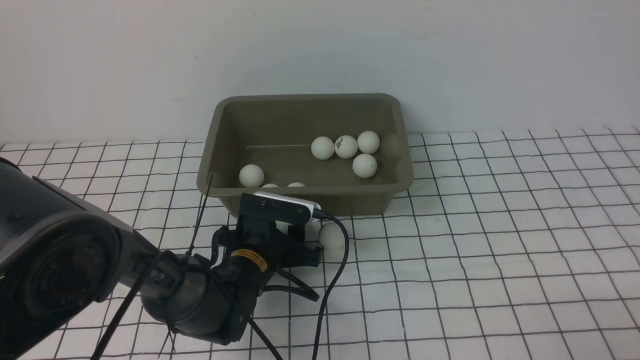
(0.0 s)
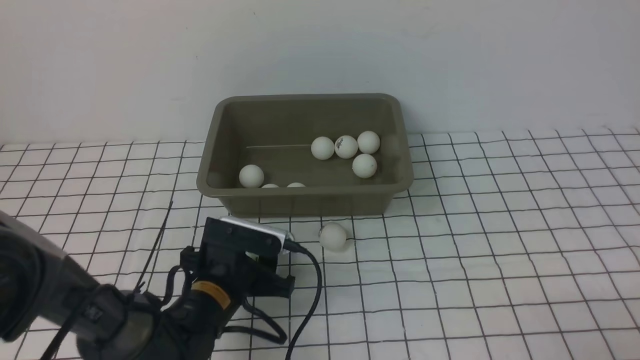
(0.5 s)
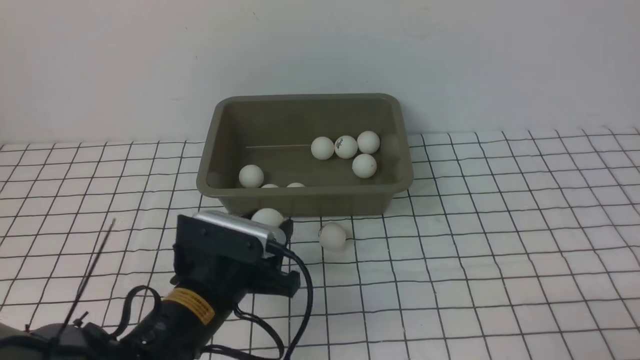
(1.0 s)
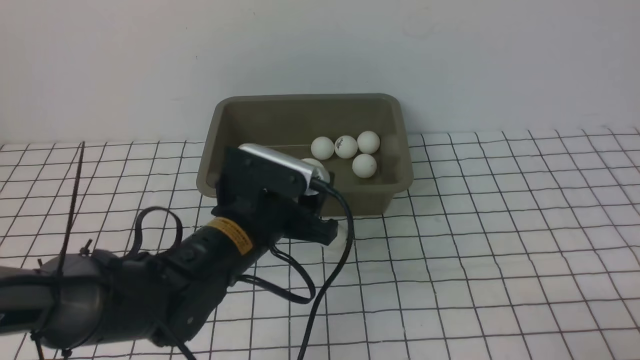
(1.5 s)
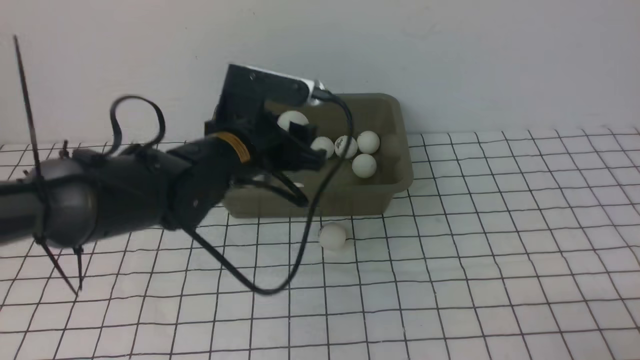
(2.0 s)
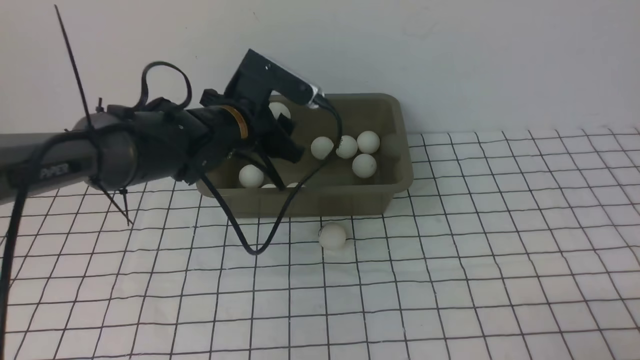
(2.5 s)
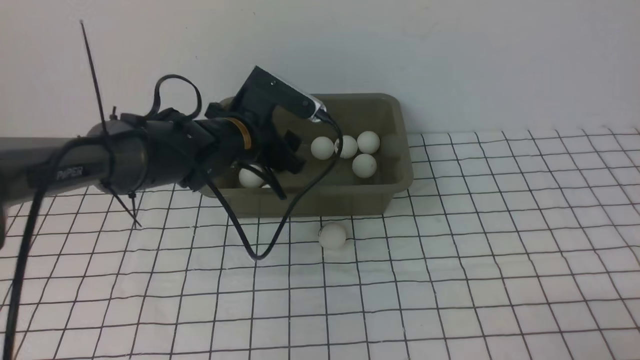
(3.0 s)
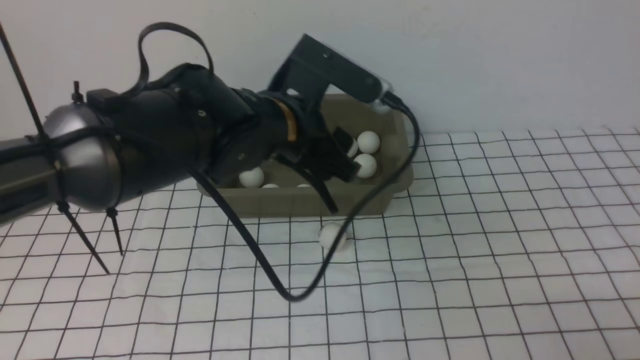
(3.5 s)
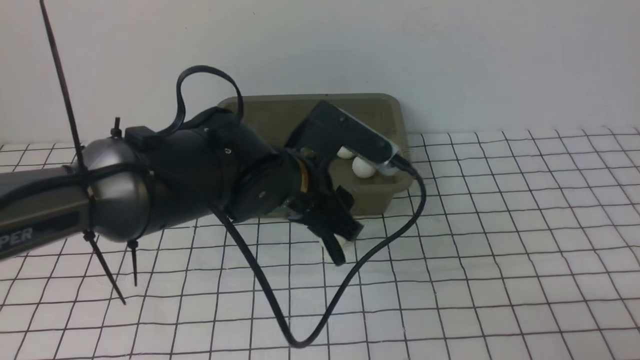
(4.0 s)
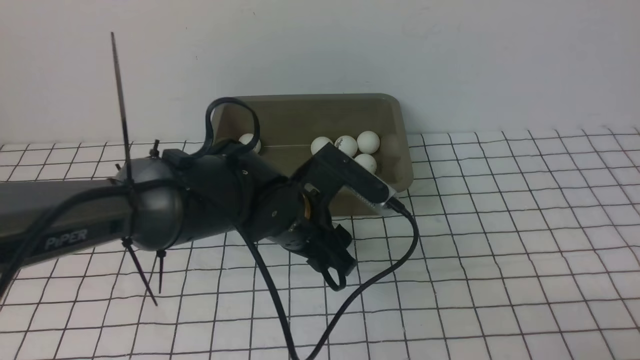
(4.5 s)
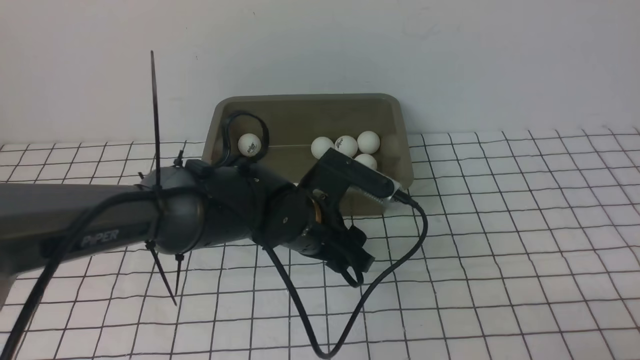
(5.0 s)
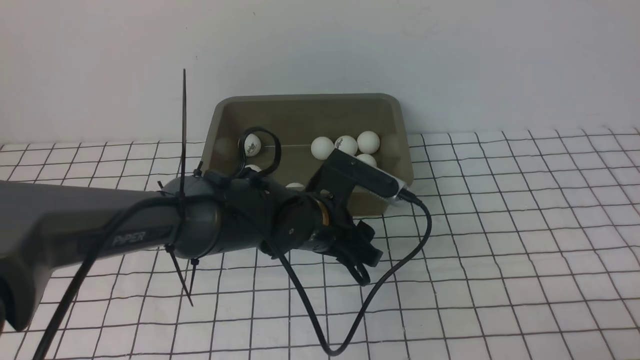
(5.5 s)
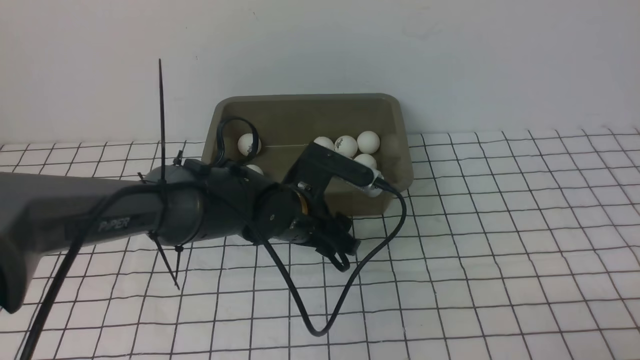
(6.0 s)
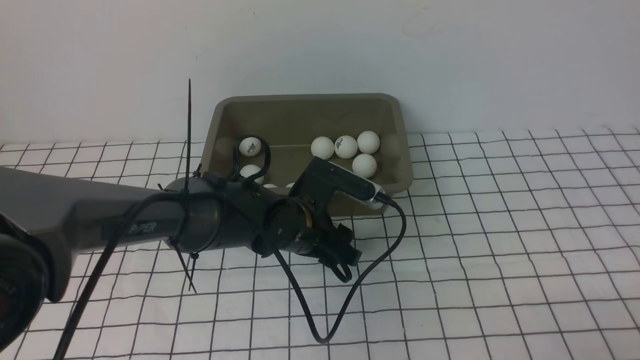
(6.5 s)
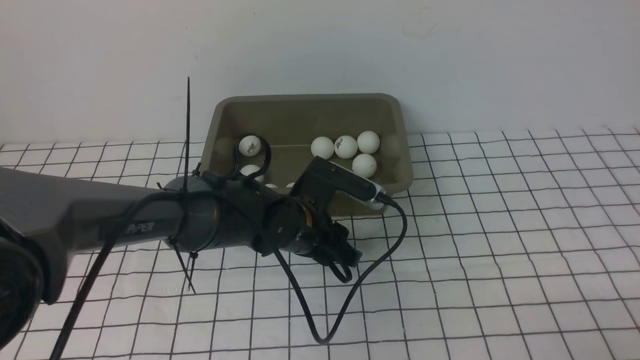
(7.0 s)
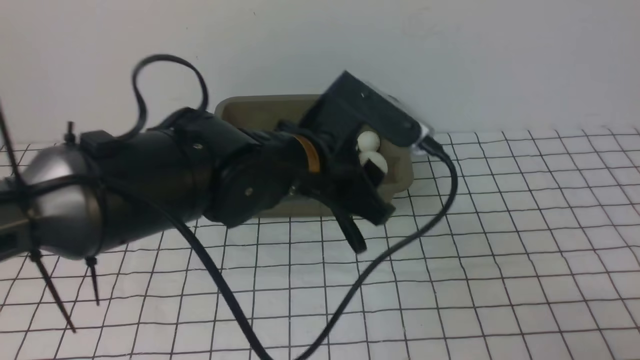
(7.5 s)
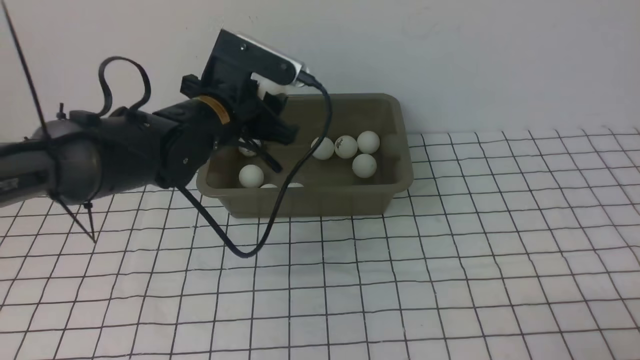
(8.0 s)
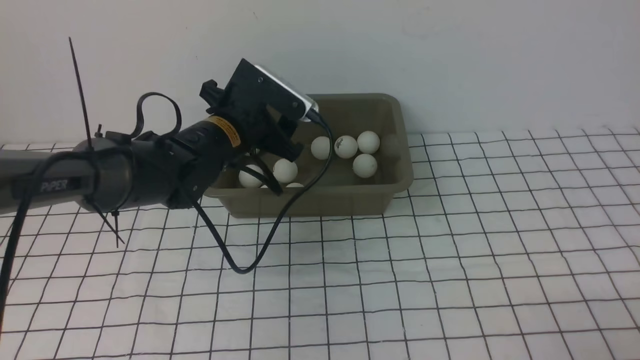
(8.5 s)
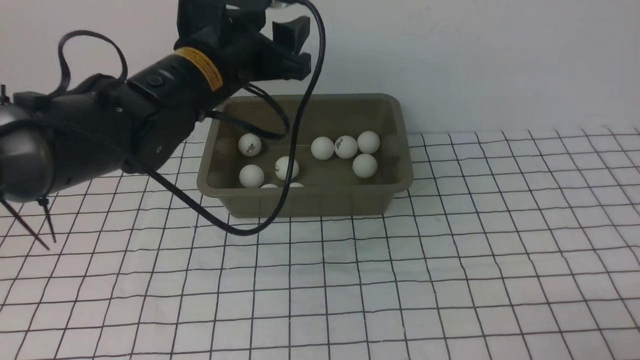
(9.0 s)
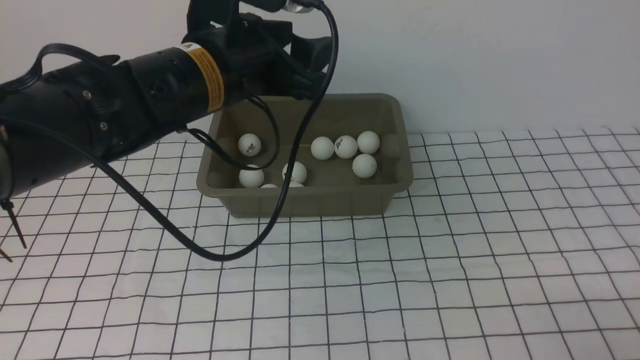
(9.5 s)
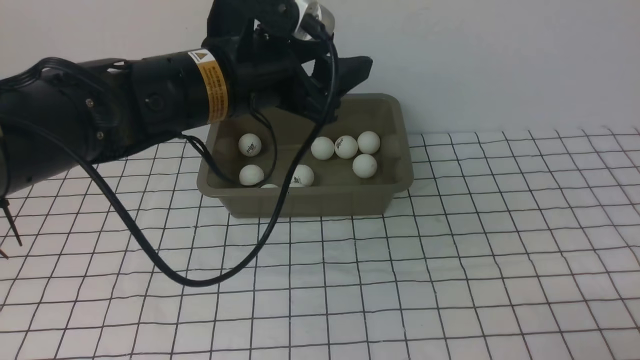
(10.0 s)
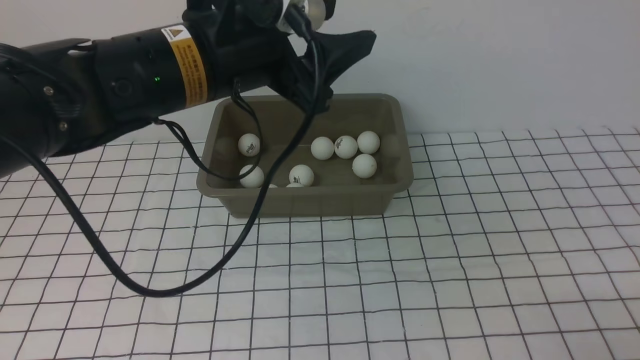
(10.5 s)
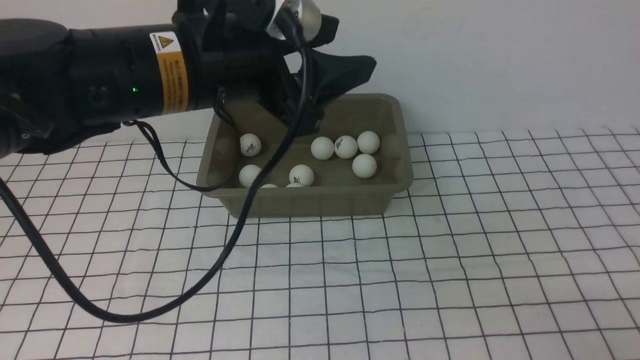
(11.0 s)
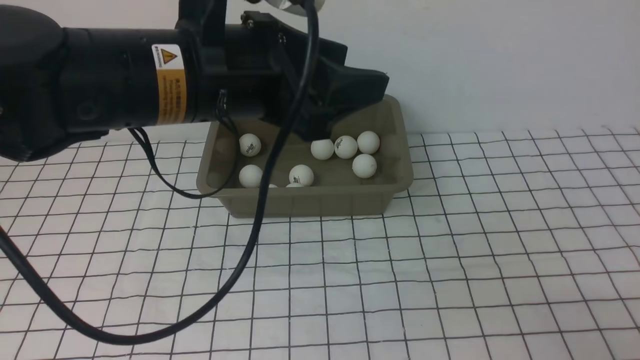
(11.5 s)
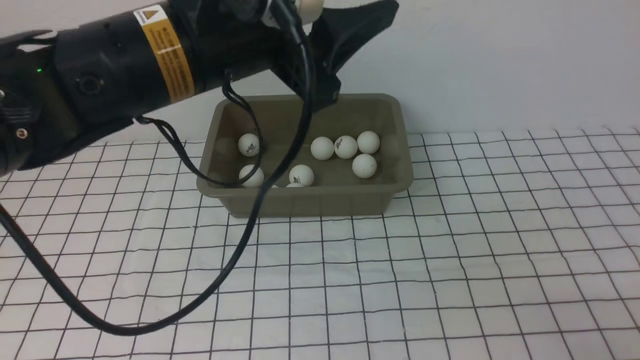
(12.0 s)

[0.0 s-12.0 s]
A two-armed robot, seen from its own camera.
Step, 0.5 to 3.0 s: use the left arm to put the table tennis ball into the box.
Step, 3.5 to 7.0 s: use the left arm to clamp the table tennis ball closest to it.
Step, 7.5 to 8.5 s: use the left arm to put the table tennis ball into the box.
0.0 to 2.0 s: The left gripper is displaced upward by some 15 cm.
2.0 to 4.0 s: The left gripper moves backward and to the right, approximately 10 cm.
4.0 to 6.0 s: The left gripper heads downward, covering roughly 5 cm.
6.0 to 8.0 s: The left gripper is displaced upward, to the left and forward by about 10 cm, and closes.
8.0 to 10.0 s: The left gripper travels upward and backward by about 10 cm, and opens.
10.0 to 12.0 s: The left gripper goes approximately 5 cm upward.

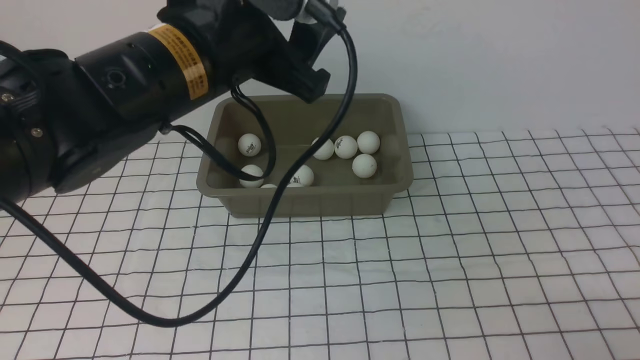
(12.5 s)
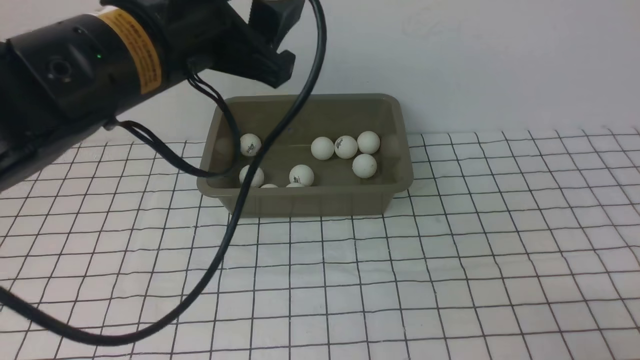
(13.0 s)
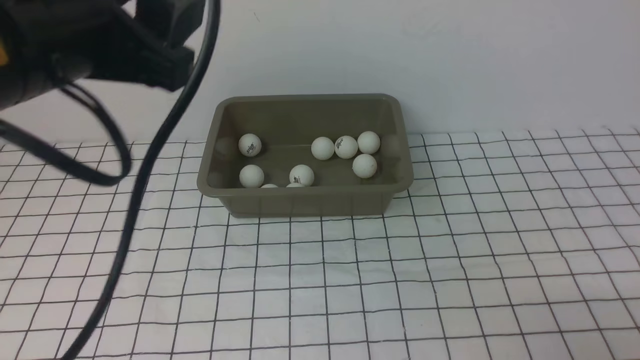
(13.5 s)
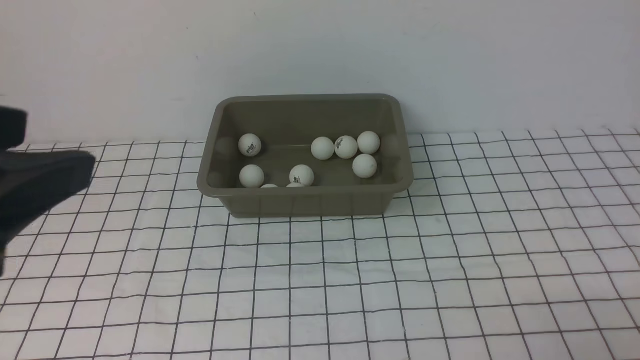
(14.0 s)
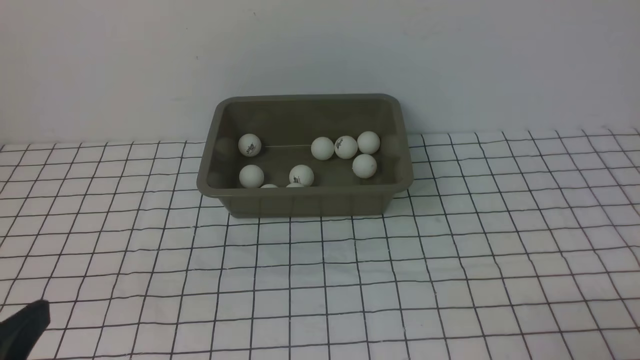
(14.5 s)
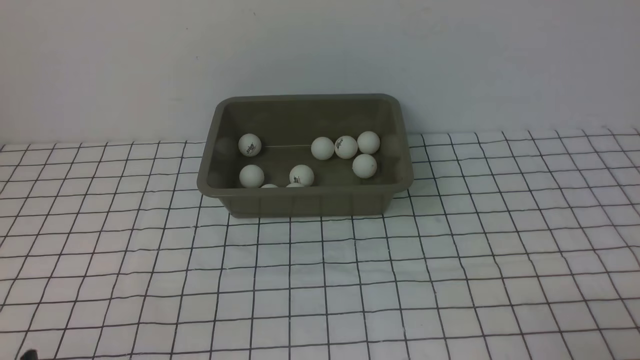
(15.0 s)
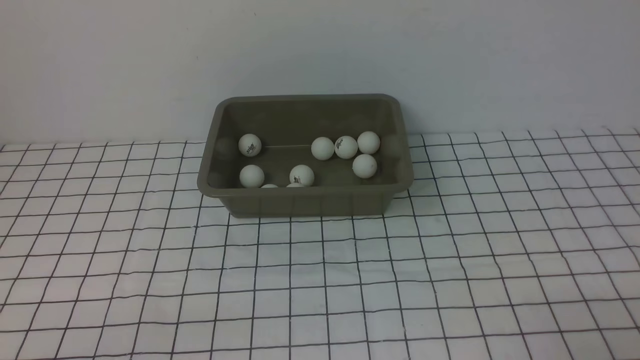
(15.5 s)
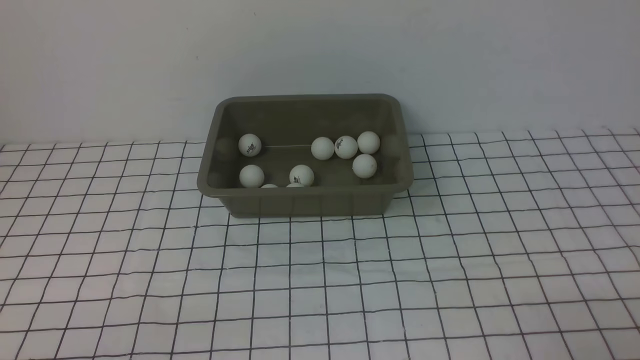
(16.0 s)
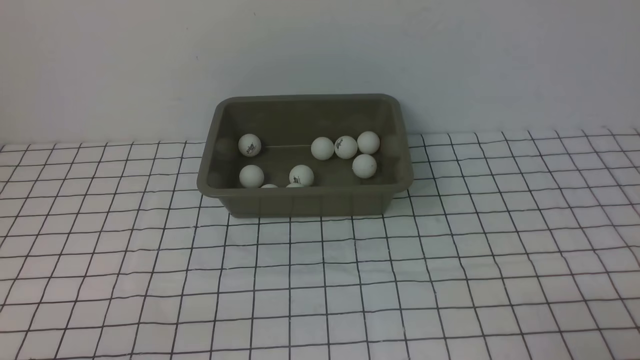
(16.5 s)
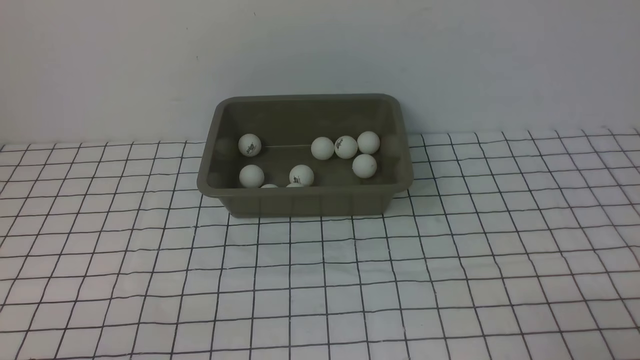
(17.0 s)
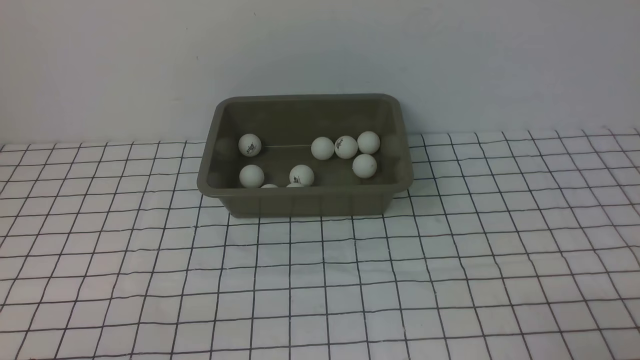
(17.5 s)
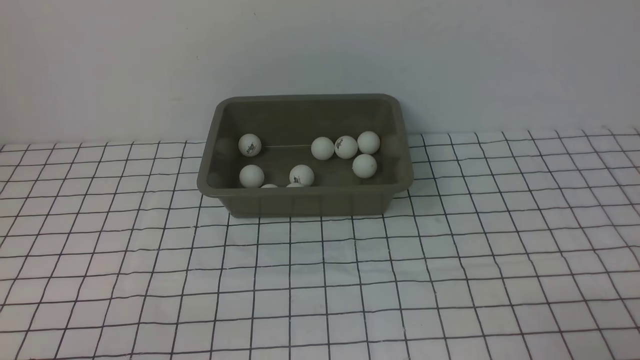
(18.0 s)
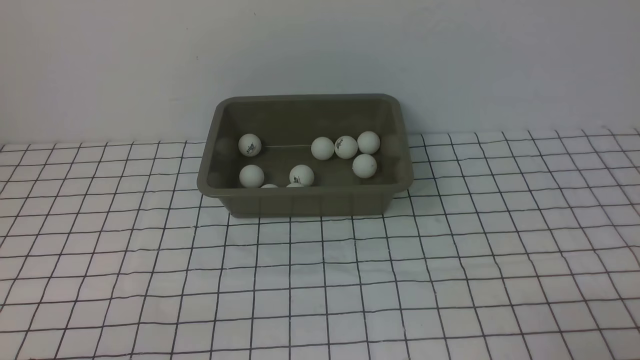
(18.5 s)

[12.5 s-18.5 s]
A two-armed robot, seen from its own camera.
12.5 to 14.5 s: The left gripper heads backward and to the left, covering approximately 25 cm.
14.5 to 16.5 s: The left gripper moves downward, some 10 cm.
16.5 to 18.5 s: Both grippers stay put.

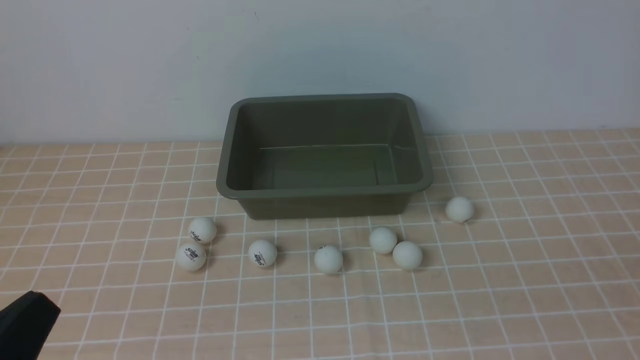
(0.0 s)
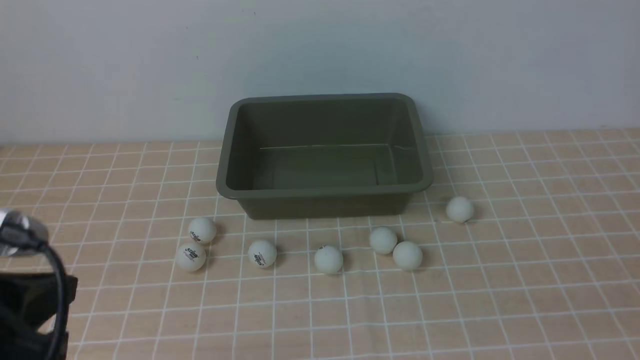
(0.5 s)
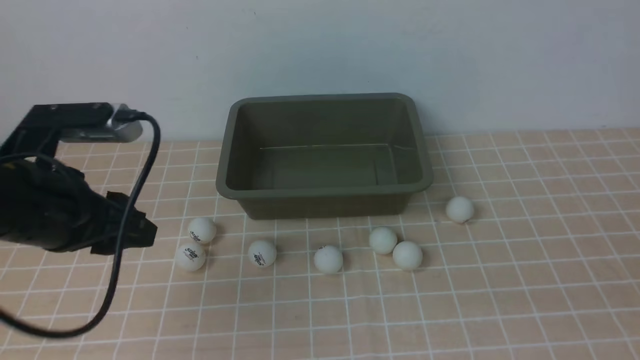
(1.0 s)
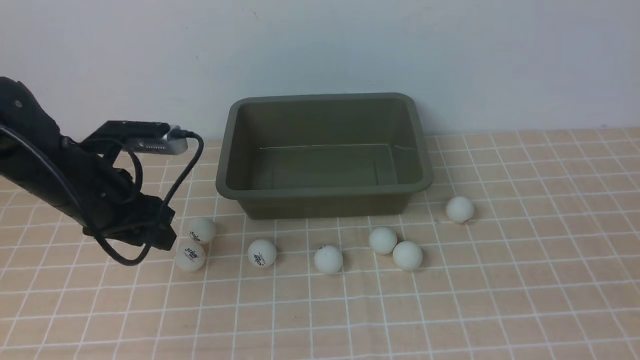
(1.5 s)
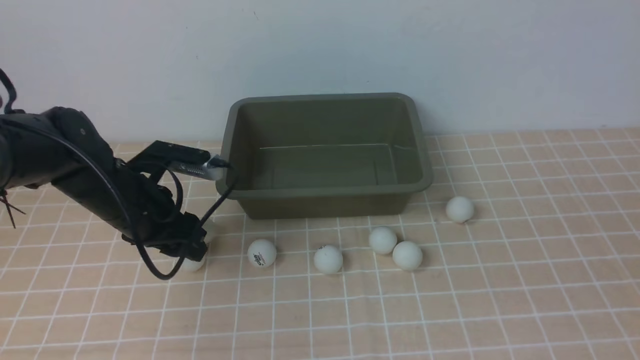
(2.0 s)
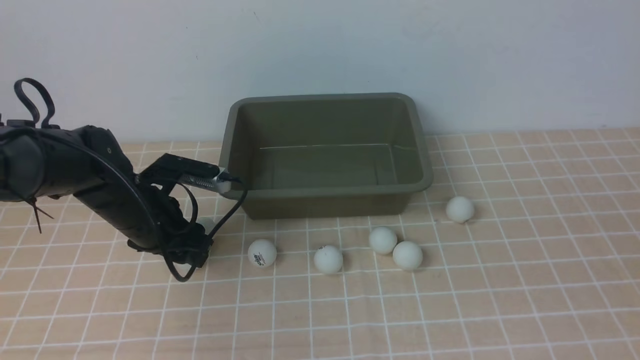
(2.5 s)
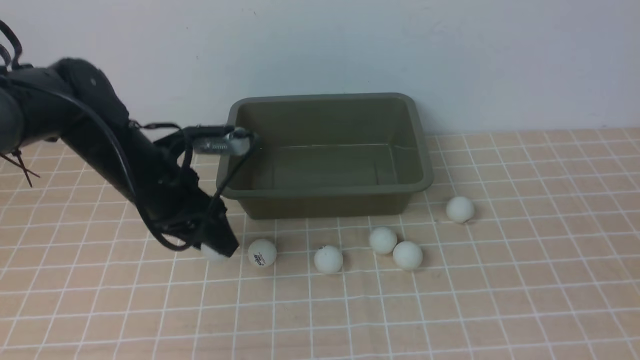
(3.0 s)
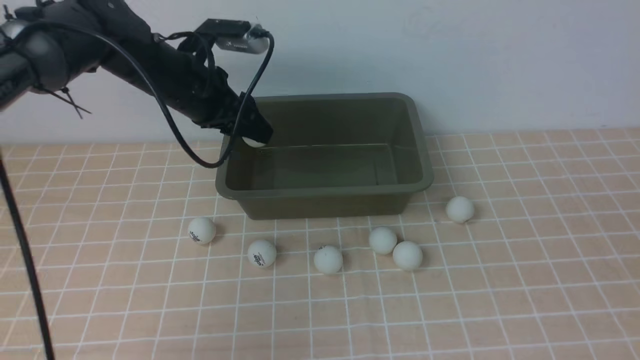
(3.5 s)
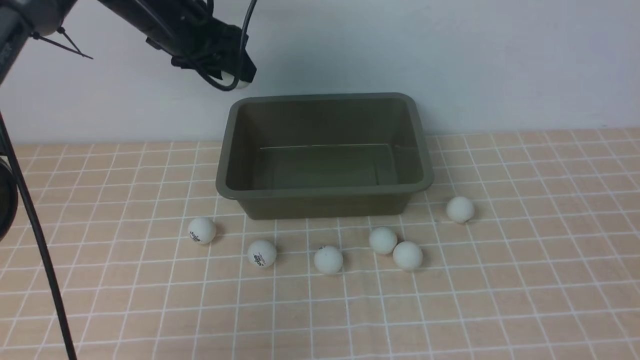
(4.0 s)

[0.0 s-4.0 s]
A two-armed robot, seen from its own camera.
Step, 0.0 to 3.0 s: use the left arm to clamp the table tennis ball closest to it.
0.0 to 2.0 s: The left gripper moves forward, approximately 30 cm, and opens its fingers; the right gripper goes some 5 cm forward.
2.0 to 4.0 s: The left gripper is displaced upward, forward and to the right by about 20 cm.
